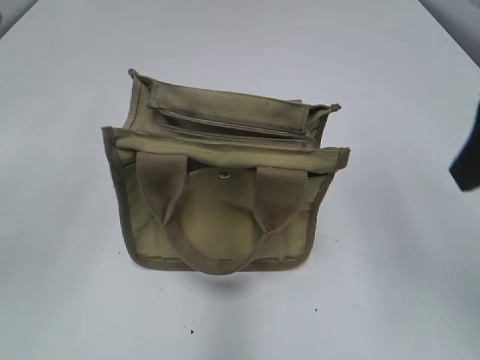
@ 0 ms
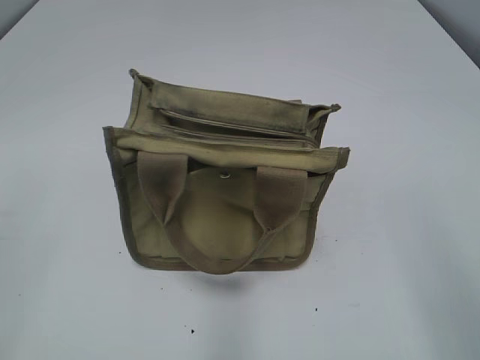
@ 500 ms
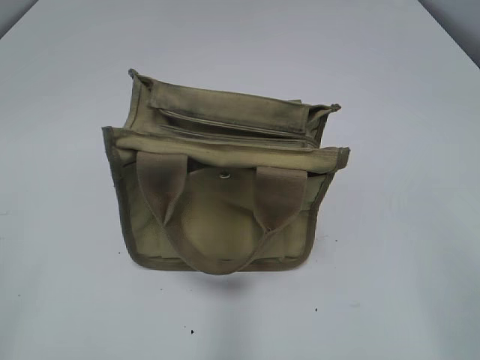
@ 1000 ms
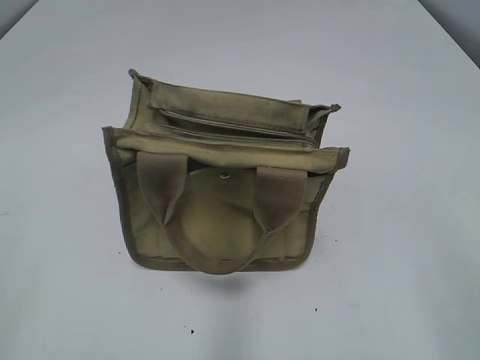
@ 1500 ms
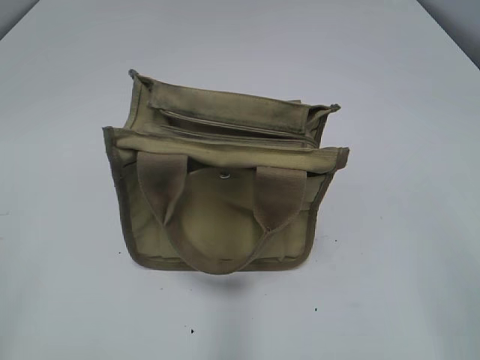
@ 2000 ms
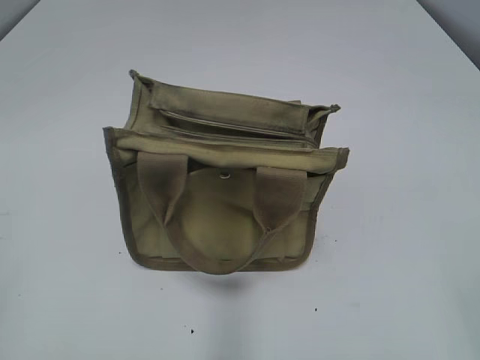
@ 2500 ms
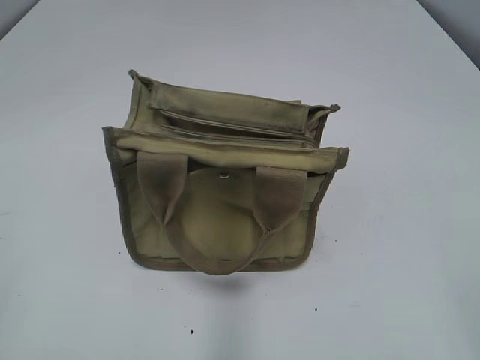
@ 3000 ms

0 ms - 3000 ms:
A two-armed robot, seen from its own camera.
0 ms - 1500 ms: The right gripper shifts roughly 15 cm backward.

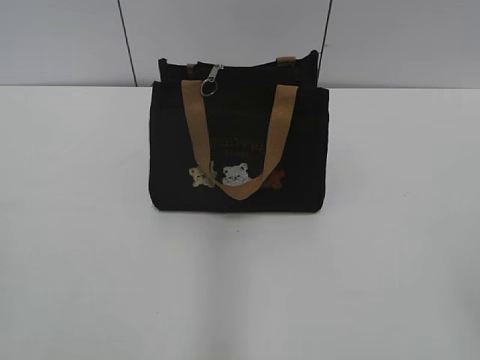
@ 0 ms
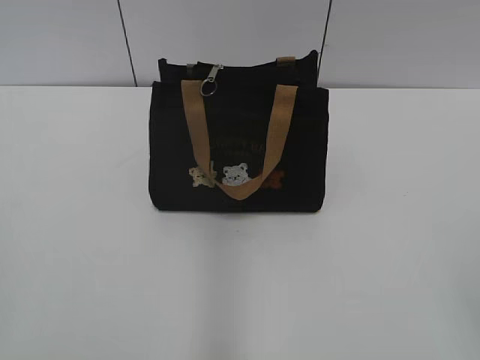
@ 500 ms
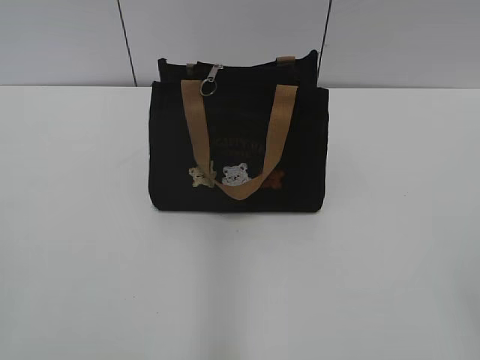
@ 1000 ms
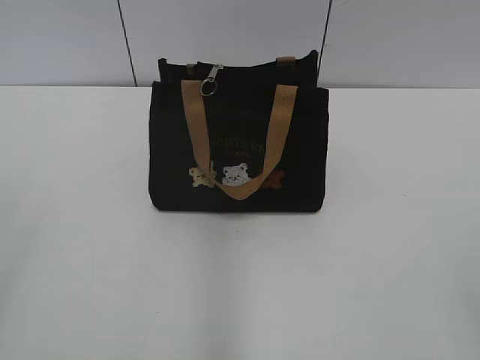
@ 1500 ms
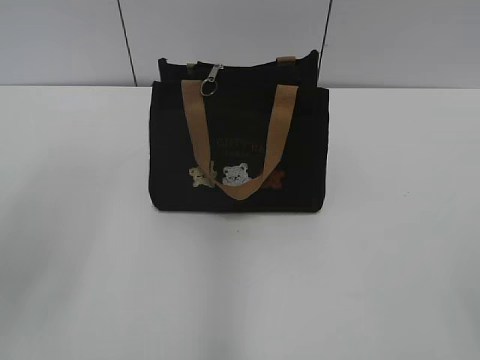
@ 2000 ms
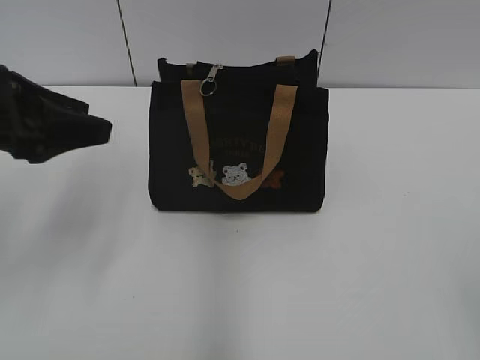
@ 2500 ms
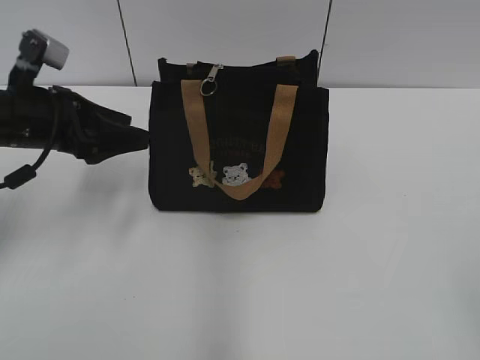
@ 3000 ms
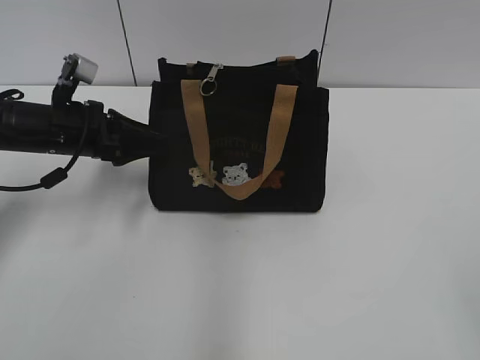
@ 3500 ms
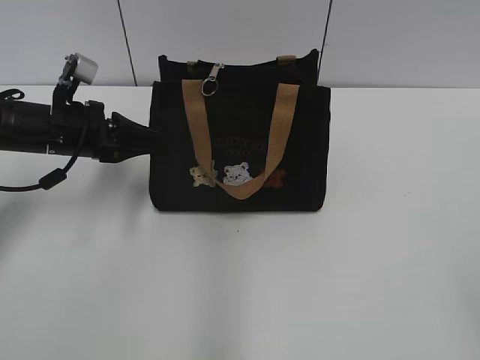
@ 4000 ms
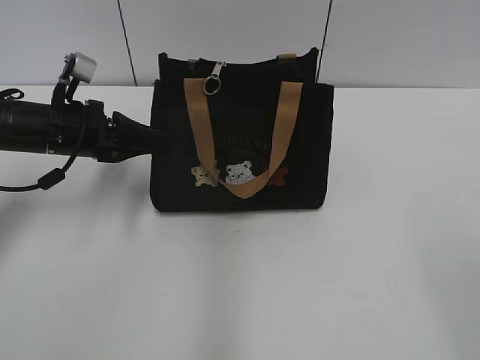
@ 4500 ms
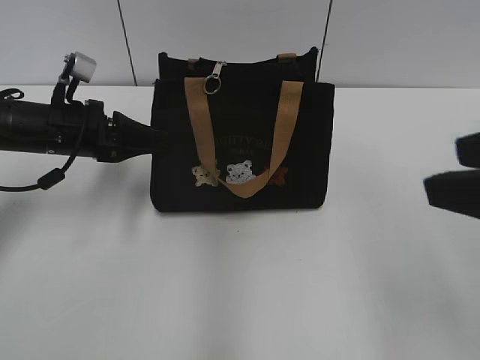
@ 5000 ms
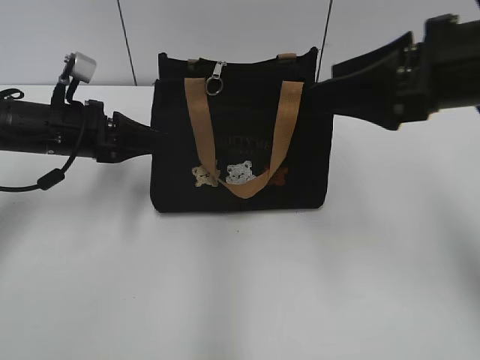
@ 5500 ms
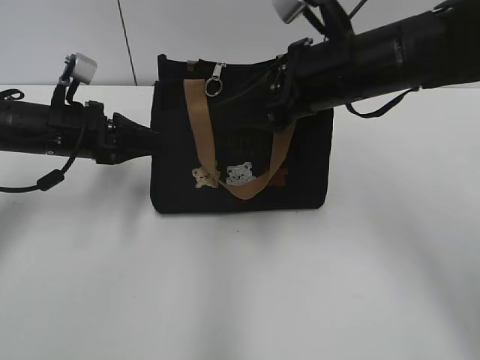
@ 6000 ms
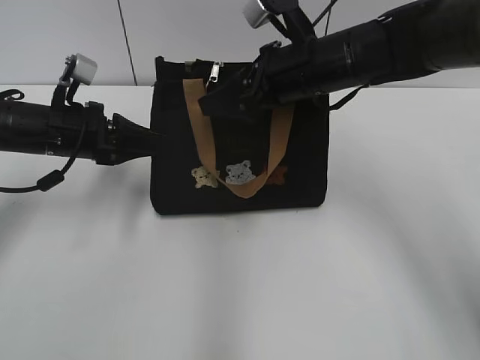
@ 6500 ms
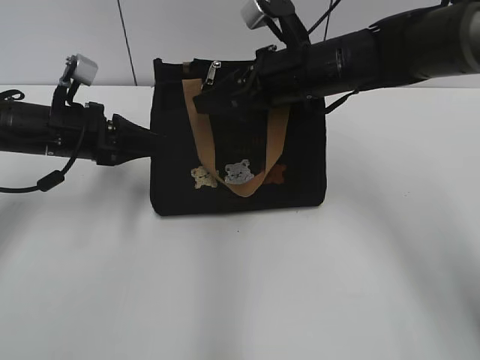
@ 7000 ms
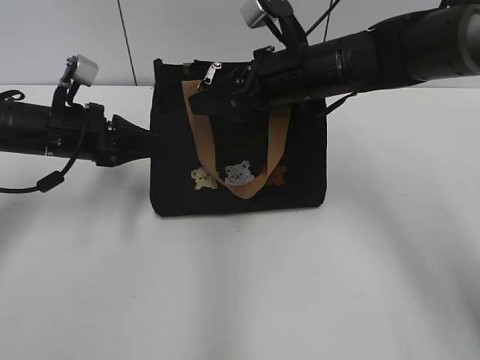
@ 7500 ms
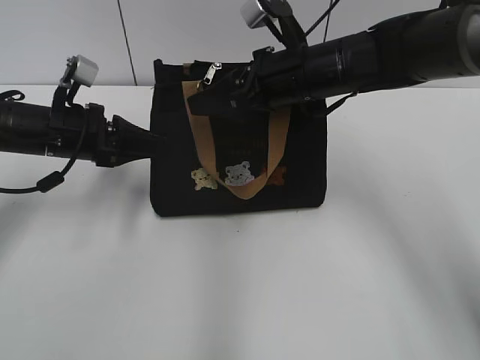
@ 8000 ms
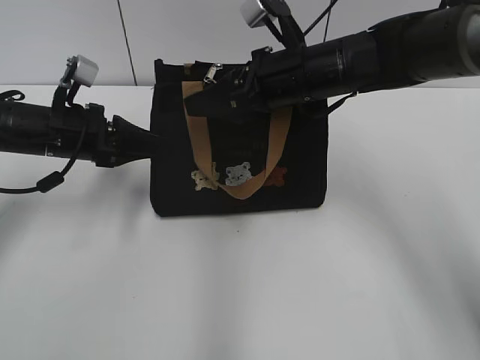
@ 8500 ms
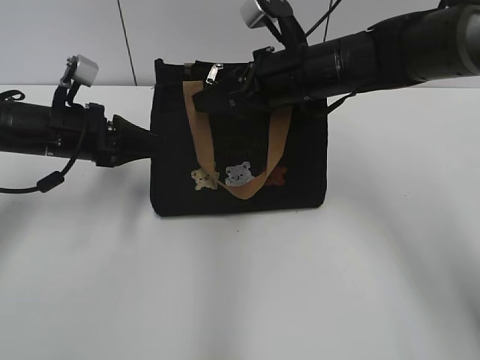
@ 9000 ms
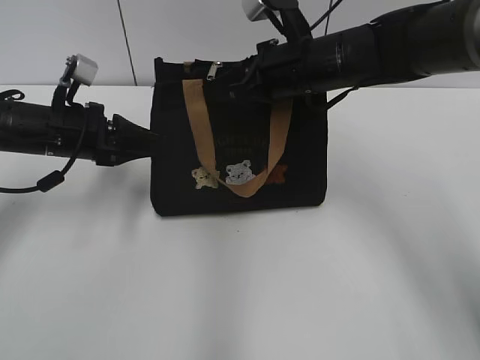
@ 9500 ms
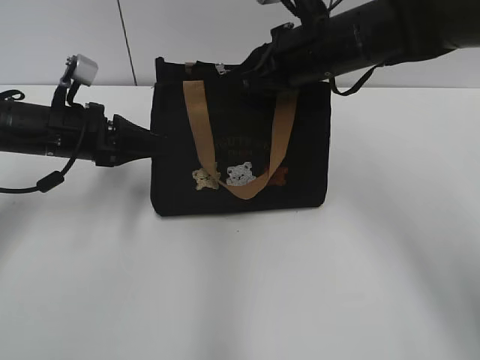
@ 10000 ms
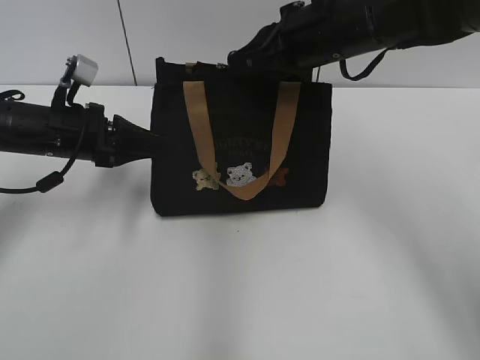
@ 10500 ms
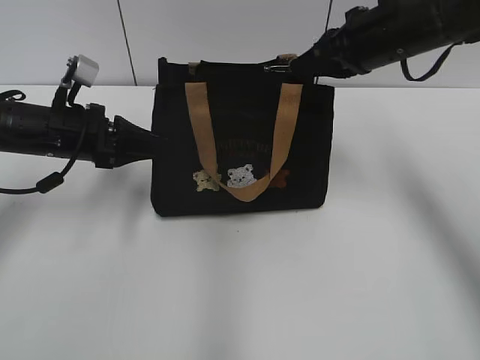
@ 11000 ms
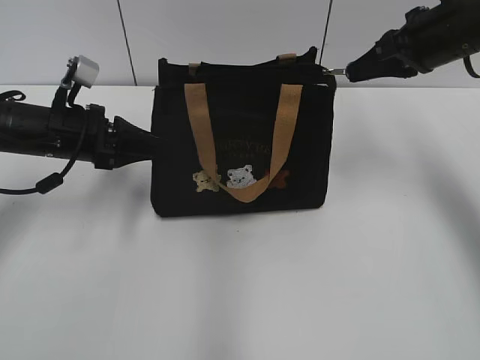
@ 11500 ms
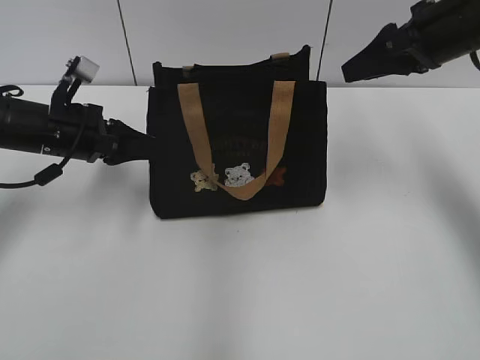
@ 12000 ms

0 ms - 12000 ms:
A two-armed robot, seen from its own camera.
Step, 0 ms - 11500 ms: Pull open the zipper with your right hand.
2000 ms - 4000 ms: The left gripper is displaced forward and downward by roughly 30 cm, and closes up.
4000 ms - 6000 ms: The right gripper heads forward and to the left, covering roughly 40 cm.
6000 ms - 8000 ms: The right gripper shifts approximately 5 cm forward.
8000 ms - 10000 ms: The right gripper closes up.
10000 ms - 12000 ms: The right gripper heads to the right, covering roughly 15 cm, and opens its fingers.

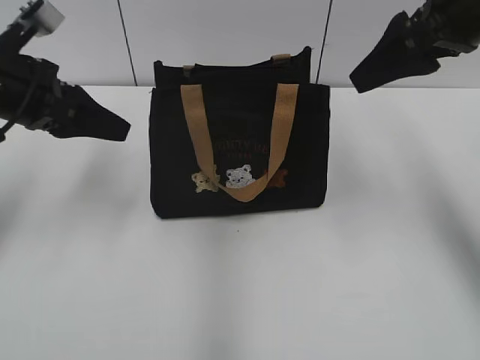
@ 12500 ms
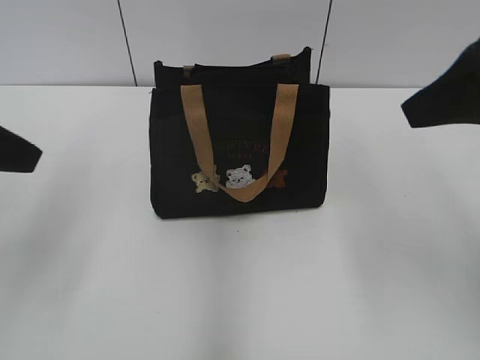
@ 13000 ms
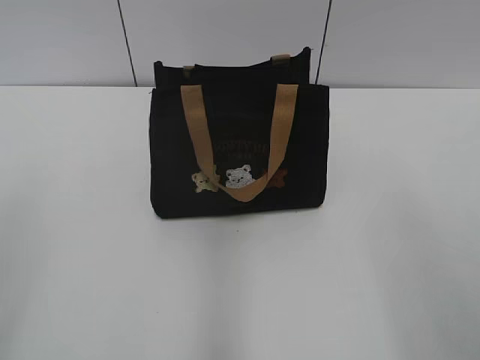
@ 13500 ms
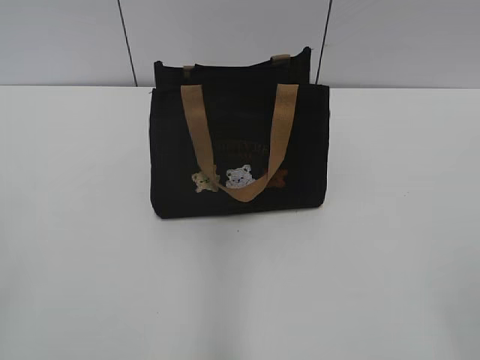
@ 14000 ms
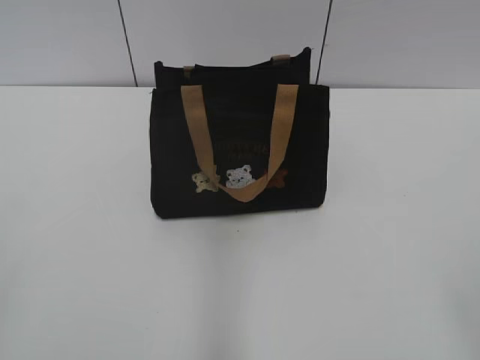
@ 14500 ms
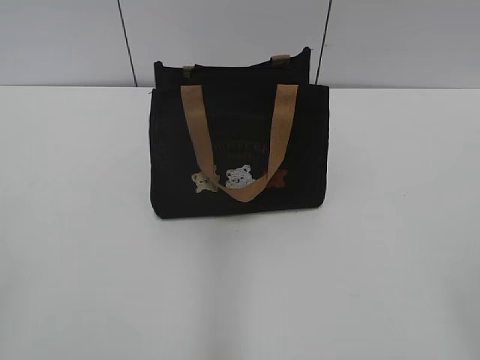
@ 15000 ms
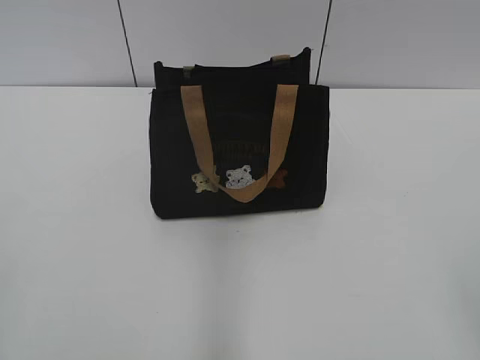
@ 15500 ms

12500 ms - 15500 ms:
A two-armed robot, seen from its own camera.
12500 ms - 14000 ms: Both grippers travel together backward, roughly 30 cm. The left gripper opens up.

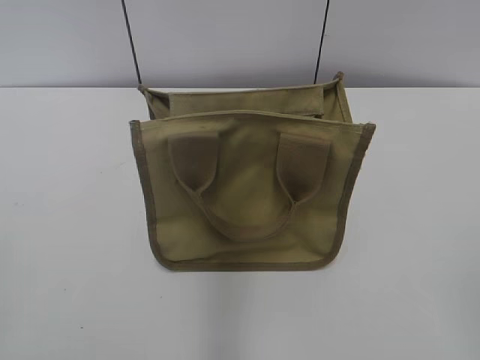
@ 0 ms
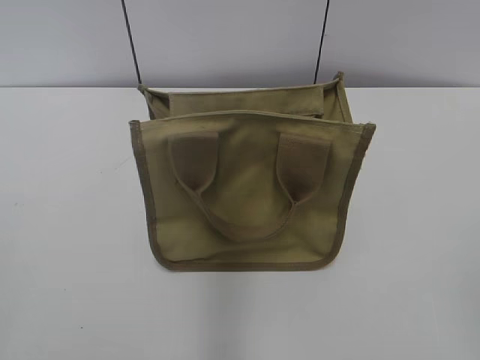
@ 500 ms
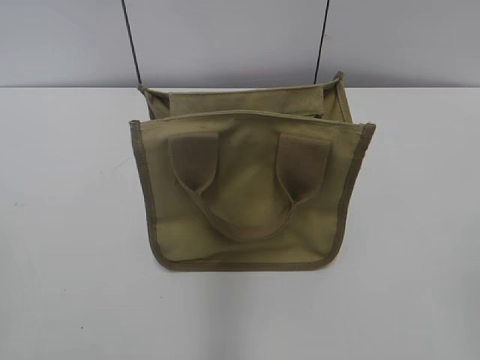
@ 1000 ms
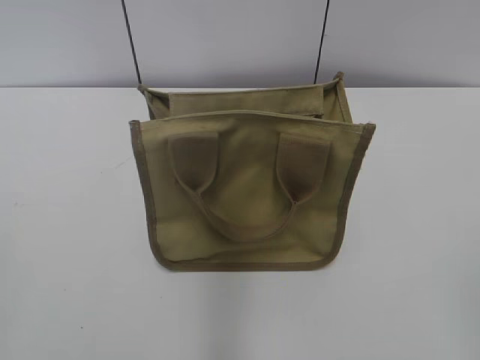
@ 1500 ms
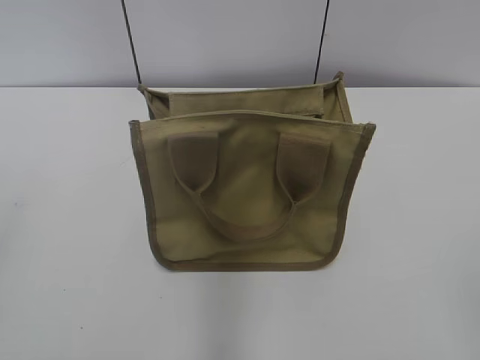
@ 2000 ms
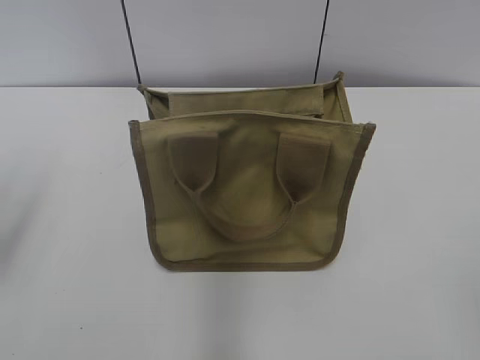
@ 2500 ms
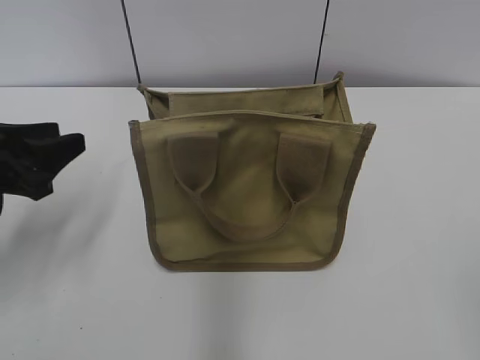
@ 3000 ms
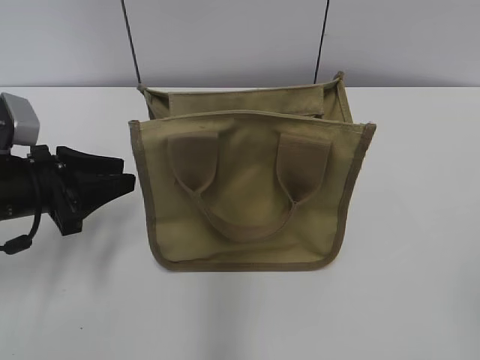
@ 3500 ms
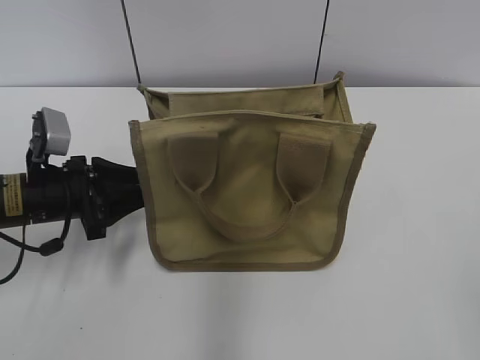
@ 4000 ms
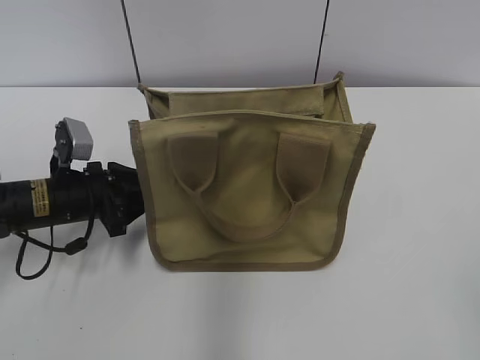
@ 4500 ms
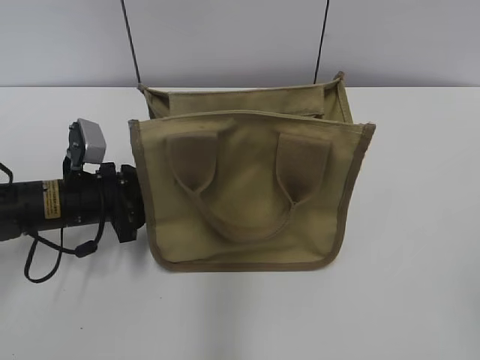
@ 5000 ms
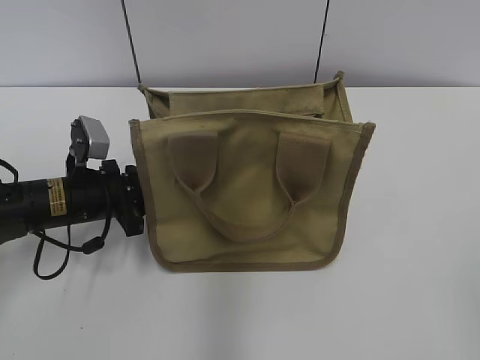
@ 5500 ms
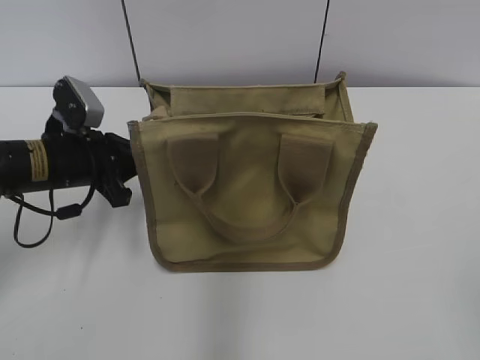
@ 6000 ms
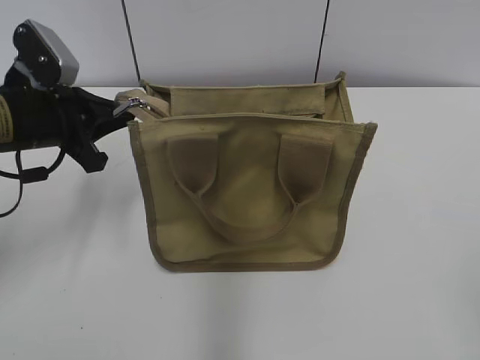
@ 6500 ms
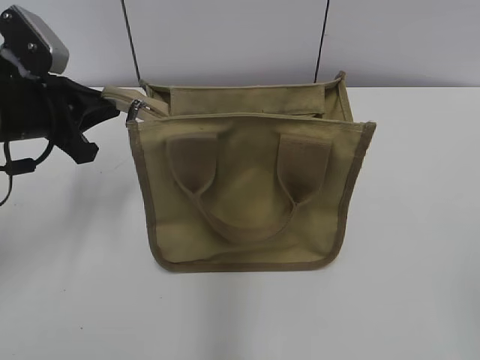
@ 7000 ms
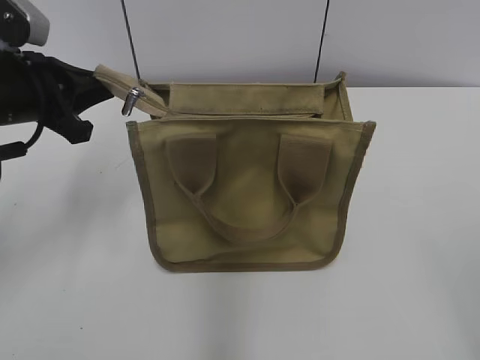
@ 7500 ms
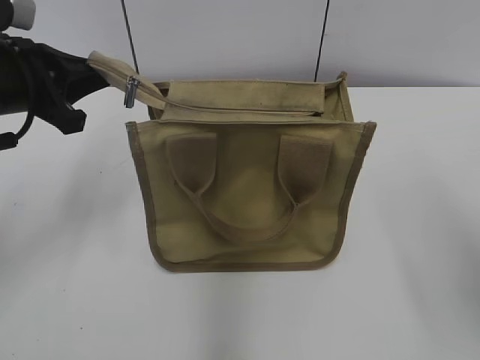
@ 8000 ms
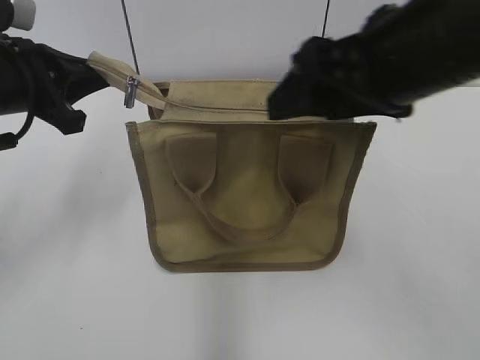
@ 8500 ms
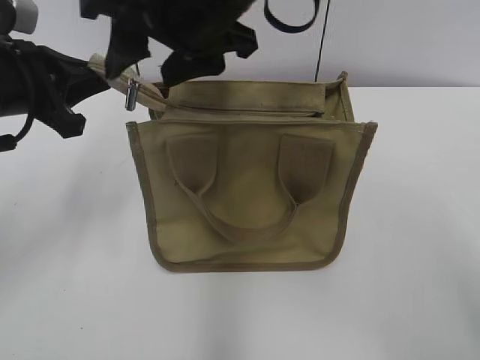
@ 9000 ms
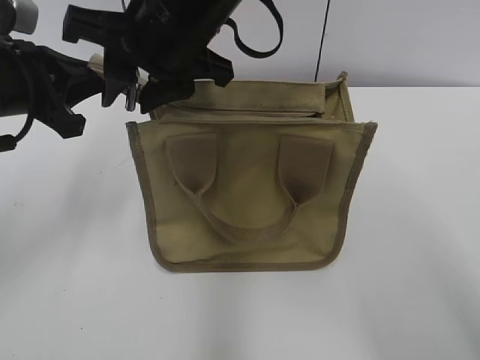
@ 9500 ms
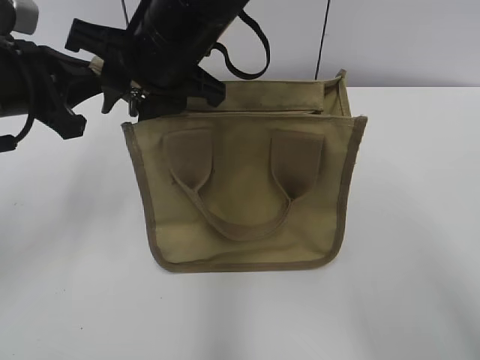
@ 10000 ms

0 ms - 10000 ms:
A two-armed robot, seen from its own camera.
2000 ms - 4000 ms: The left gripper is displaced forward and downward by roughly 30 cm.
4000 ms - 6000 ms: The left gripper closes.
6000 ms - 8000 ms: The right gripper goes about 15 cm forward. Meanwhile the left gripper heads upward, covering roughly 10 cm.
8000 ms - 10000 ms: The right gripper goes some 35 cm to the left and forward, and closes its fingers.
